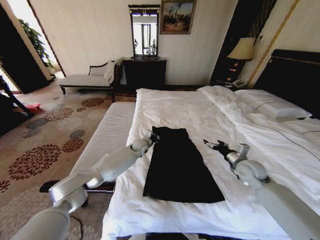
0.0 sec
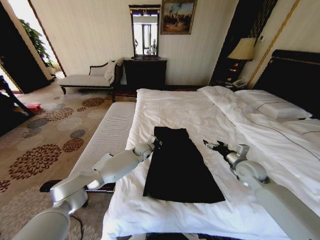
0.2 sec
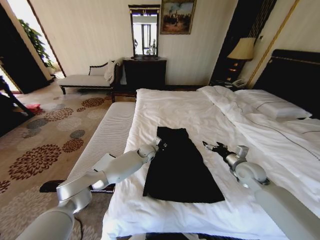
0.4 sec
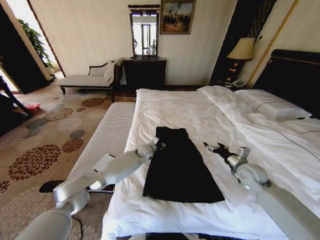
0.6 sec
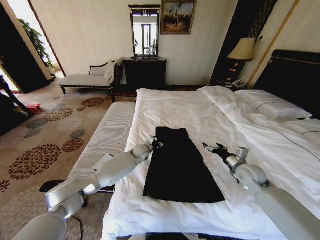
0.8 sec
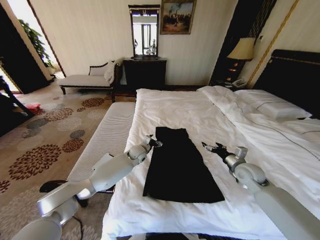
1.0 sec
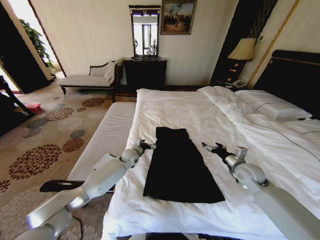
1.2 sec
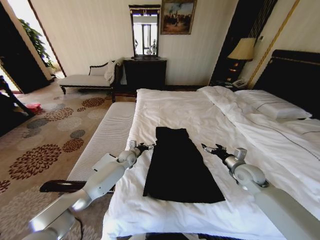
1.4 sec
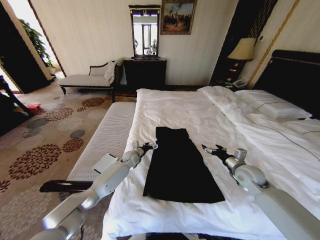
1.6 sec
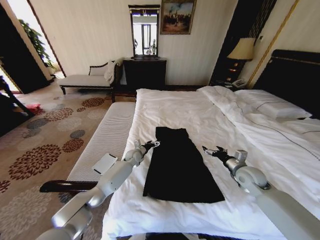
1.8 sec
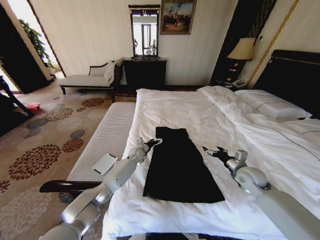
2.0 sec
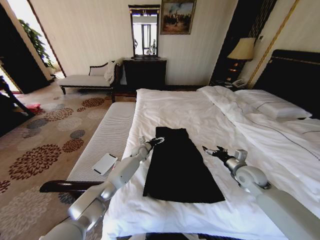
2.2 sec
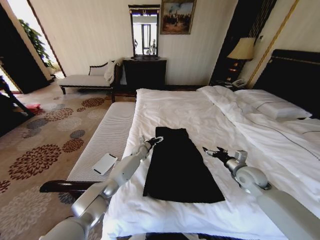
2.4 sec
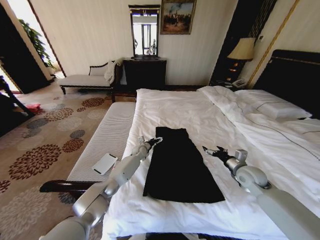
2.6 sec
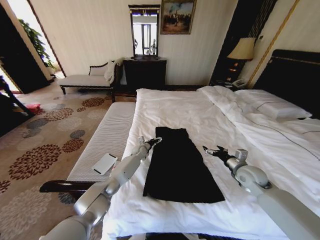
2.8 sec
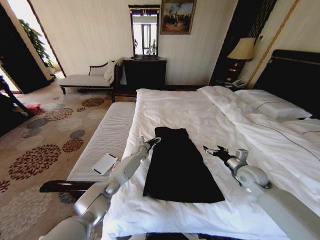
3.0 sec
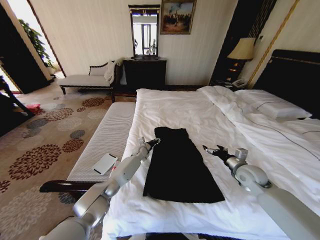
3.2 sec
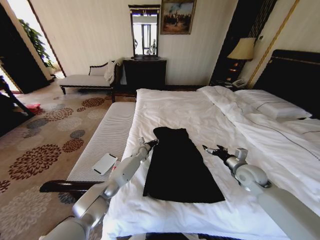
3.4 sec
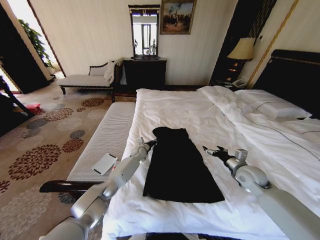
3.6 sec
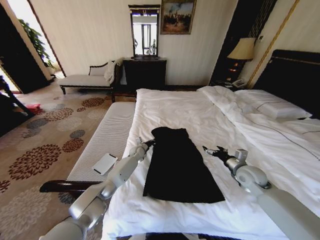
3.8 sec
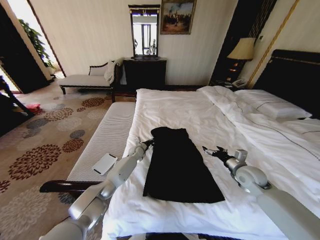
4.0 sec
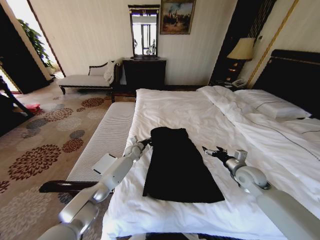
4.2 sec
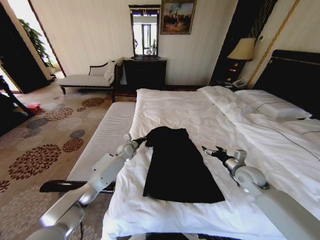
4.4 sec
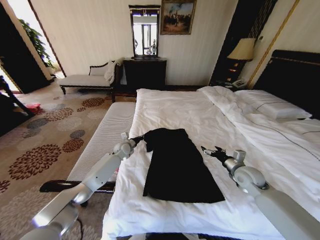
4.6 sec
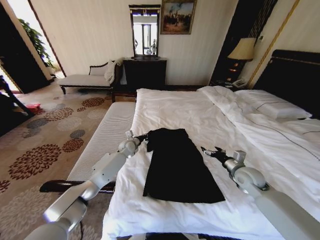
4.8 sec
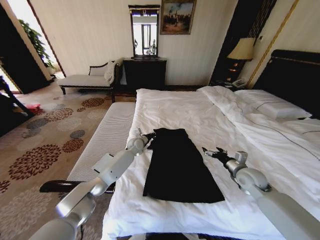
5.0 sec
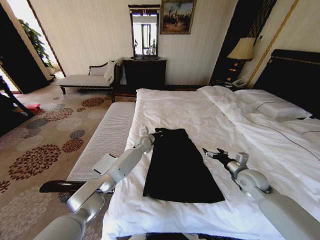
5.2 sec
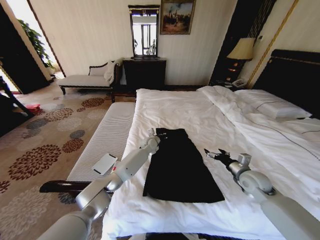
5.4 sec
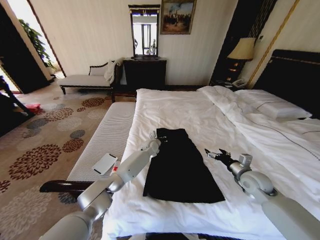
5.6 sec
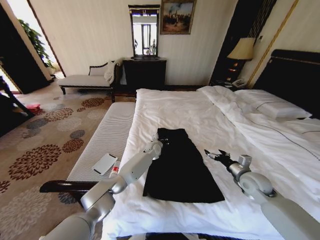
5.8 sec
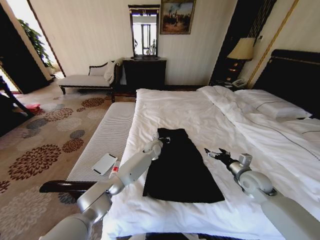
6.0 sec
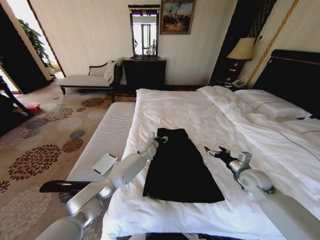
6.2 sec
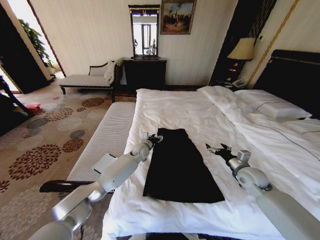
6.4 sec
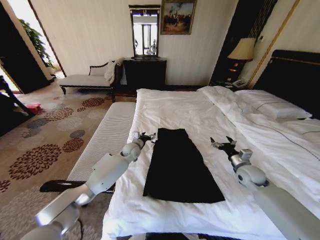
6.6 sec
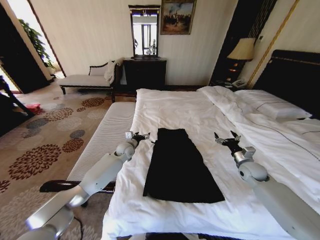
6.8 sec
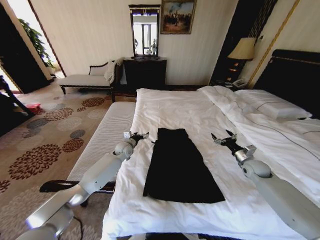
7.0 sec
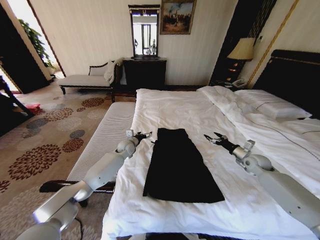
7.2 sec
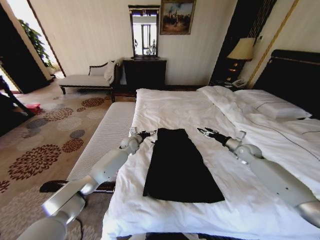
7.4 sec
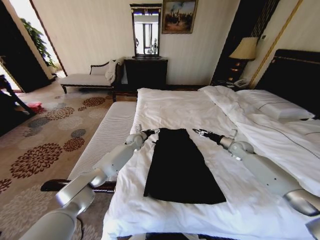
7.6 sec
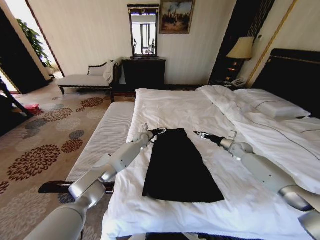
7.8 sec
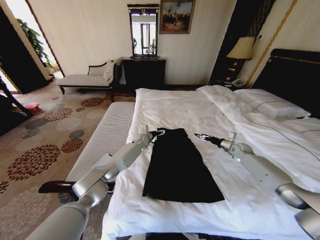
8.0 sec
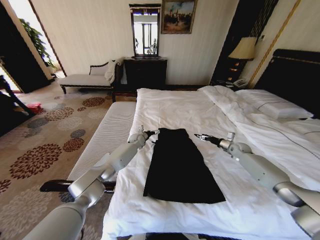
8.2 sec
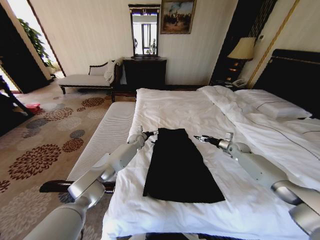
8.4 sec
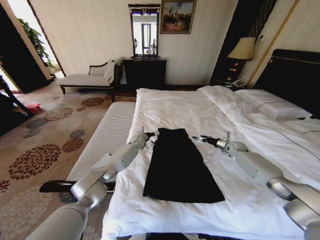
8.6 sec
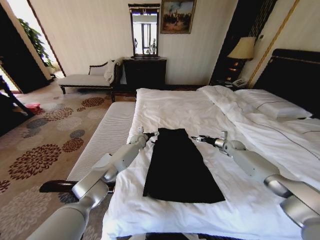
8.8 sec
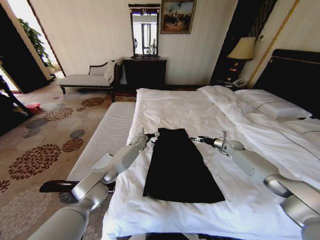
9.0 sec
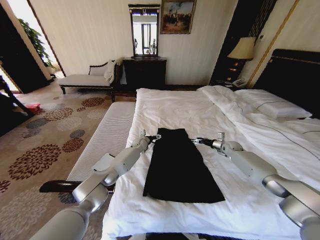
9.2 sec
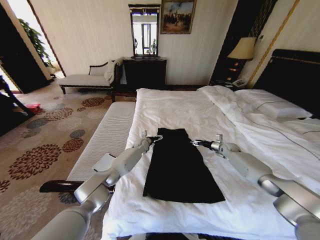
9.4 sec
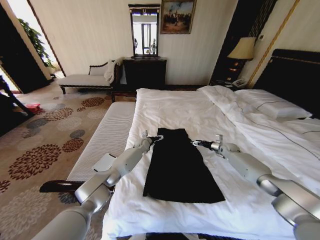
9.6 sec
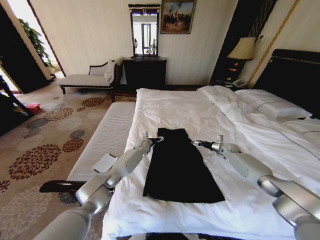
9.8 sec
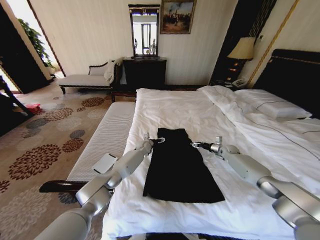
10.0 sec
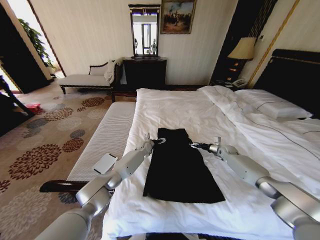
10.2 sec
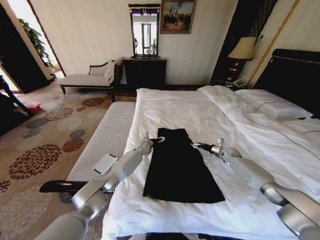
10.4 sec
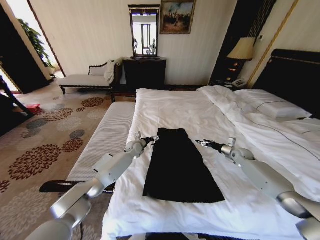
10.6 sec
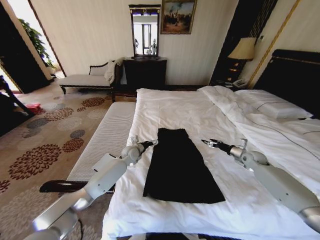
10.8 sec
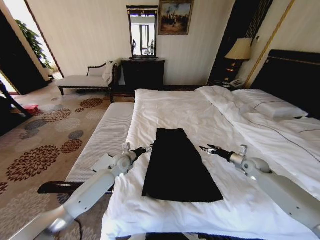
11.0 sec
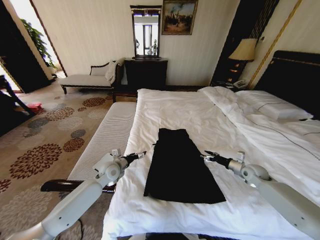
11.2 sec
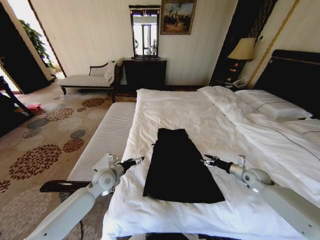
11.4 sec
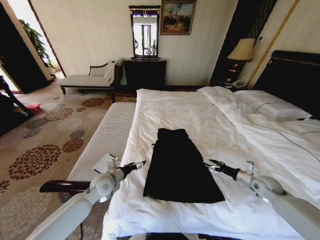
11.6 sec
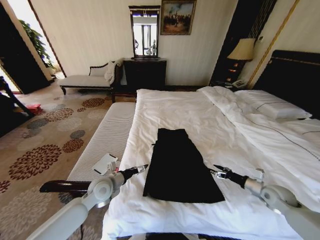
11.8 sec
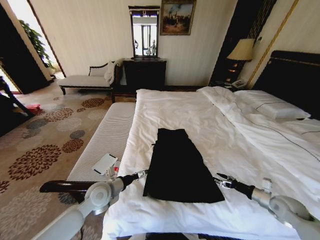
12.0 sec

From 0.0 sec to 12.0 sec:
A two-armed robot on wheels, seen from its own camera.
Task of the whole recording: Fold the clothes on the bed.
From 0.0 sec to 1.6 sec: The left gripper heads downward and to the left, covering about 10 cm, and opens.
From 1.6 sec to 3.0 sec: The left gripper is displaced forward by about 5 cm.
From 3.0 sec to 4.4 sec: The left gripper goes approximately 10 cm to the left and upward, and closes.
From 4.4 sec to 6.0 sec: The left gripper shifts some 15 cm to the right.
From 6.0 sec to 7.6 sec: The left gripper moves to the left, approximately 10 cm, and opens up, while the right gripper heads forward, covering some 20 cm.
From 7.6 sec to 9.0 sec: The right gripper ends up some 5 cm from where it was. Meanwhile the left gripper moves approximately 5 cm.
From 9.0 sec to 10.4 sec: There are only small adjustments of the grippers.
From 10.4 sec to 12.0 sec: The right gripper is displaced backward by about 30 cm, while the left gripper travels backward and to the left by some 35 cm.

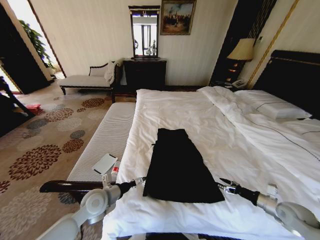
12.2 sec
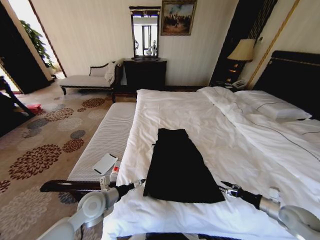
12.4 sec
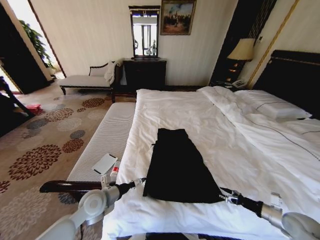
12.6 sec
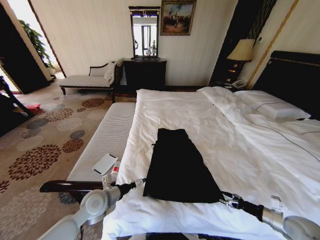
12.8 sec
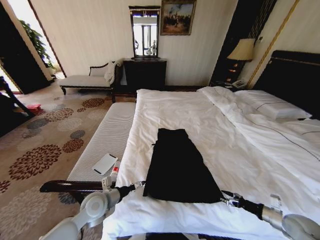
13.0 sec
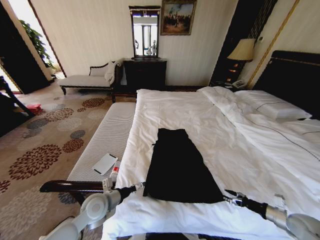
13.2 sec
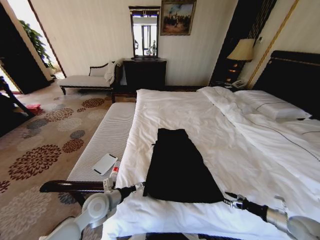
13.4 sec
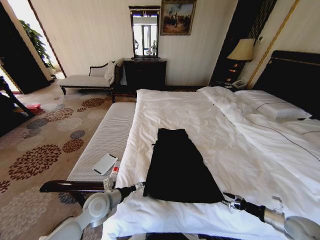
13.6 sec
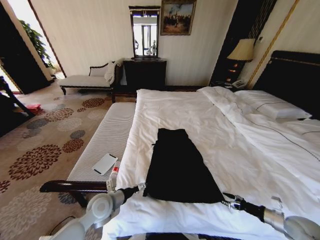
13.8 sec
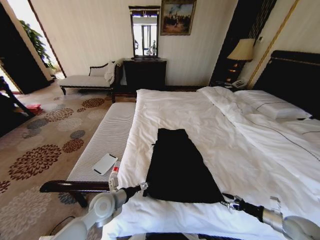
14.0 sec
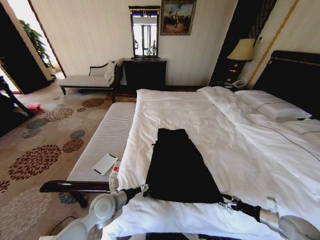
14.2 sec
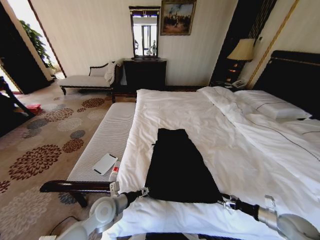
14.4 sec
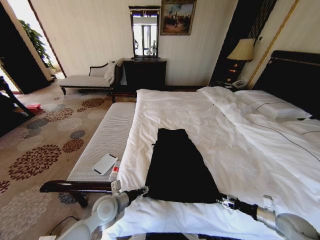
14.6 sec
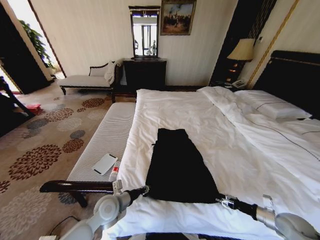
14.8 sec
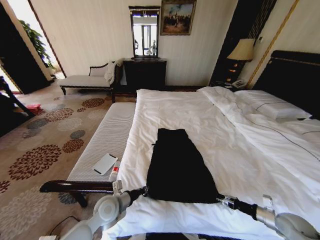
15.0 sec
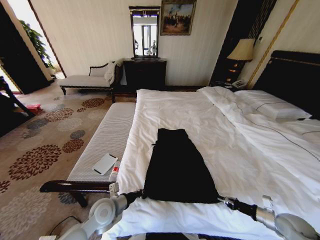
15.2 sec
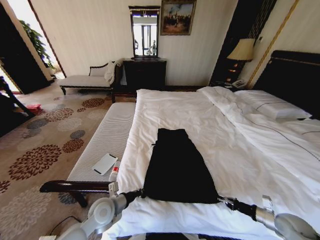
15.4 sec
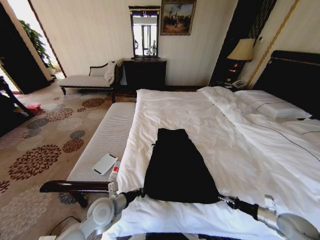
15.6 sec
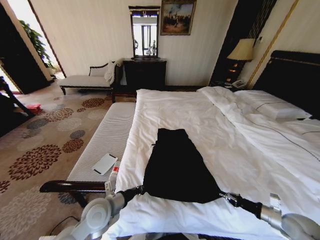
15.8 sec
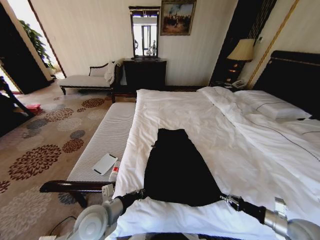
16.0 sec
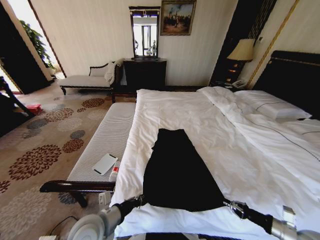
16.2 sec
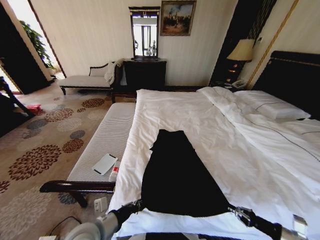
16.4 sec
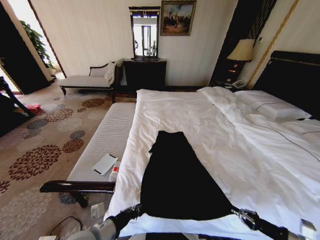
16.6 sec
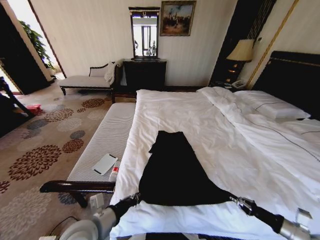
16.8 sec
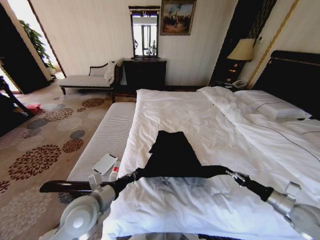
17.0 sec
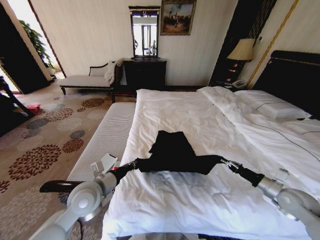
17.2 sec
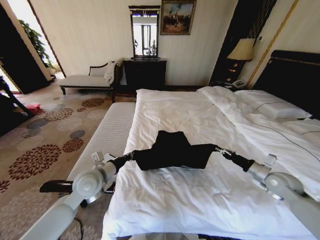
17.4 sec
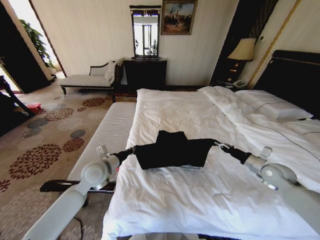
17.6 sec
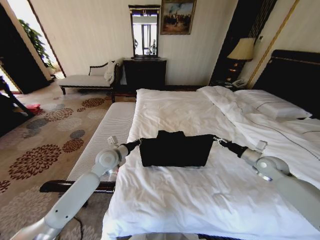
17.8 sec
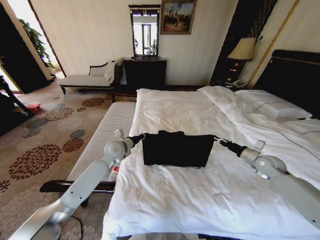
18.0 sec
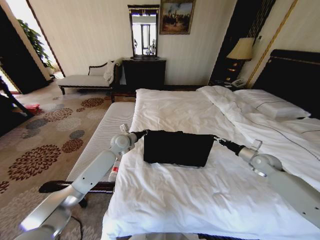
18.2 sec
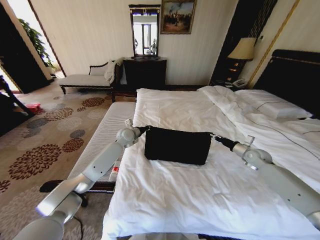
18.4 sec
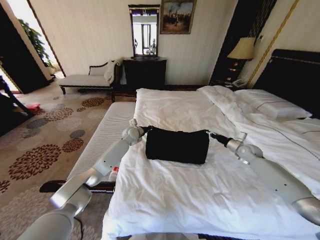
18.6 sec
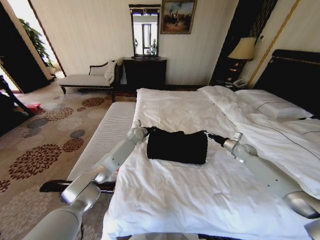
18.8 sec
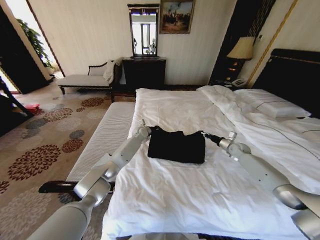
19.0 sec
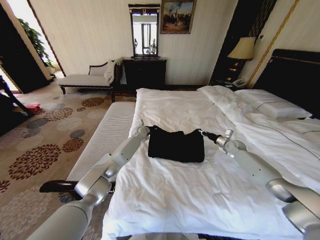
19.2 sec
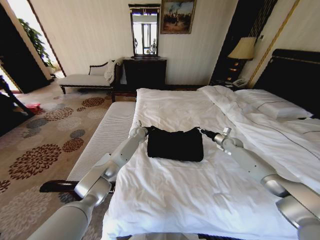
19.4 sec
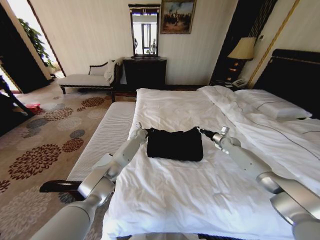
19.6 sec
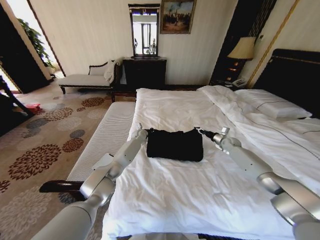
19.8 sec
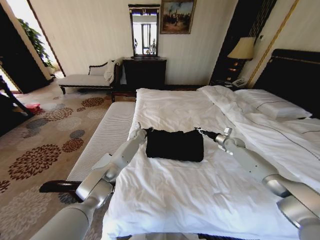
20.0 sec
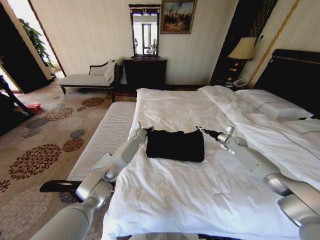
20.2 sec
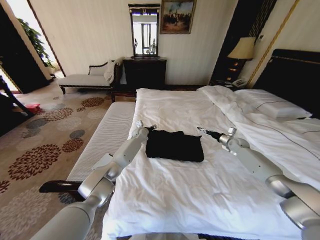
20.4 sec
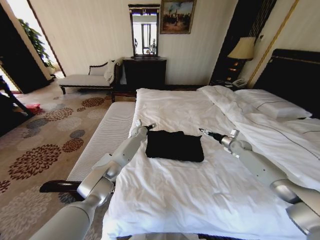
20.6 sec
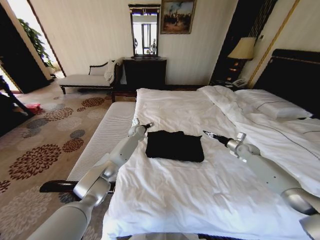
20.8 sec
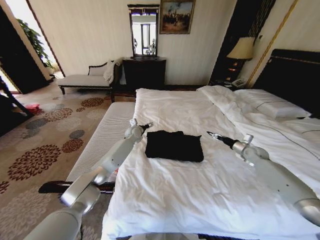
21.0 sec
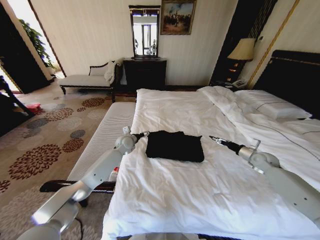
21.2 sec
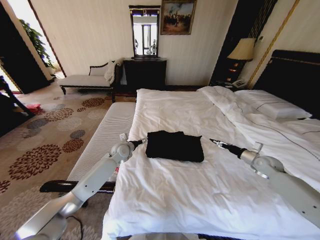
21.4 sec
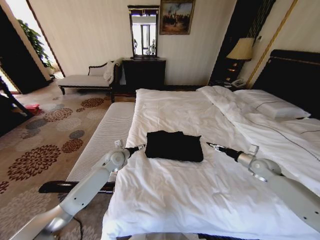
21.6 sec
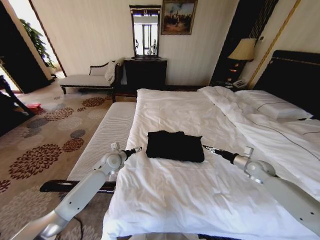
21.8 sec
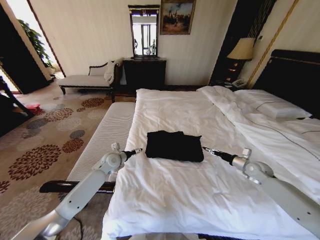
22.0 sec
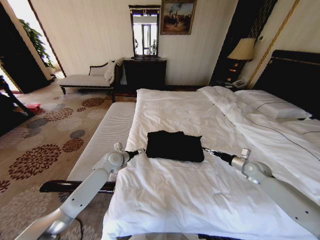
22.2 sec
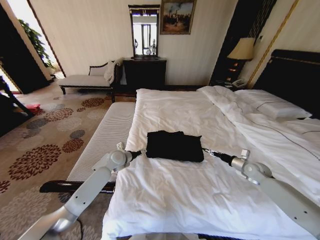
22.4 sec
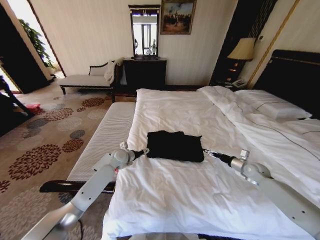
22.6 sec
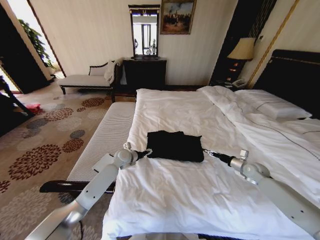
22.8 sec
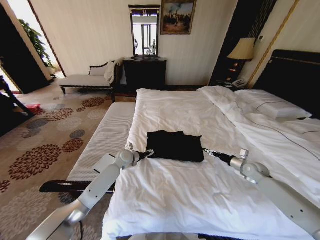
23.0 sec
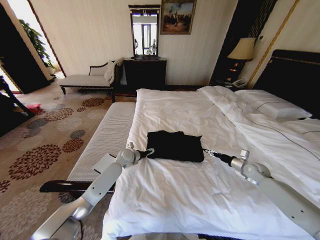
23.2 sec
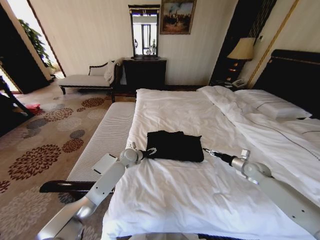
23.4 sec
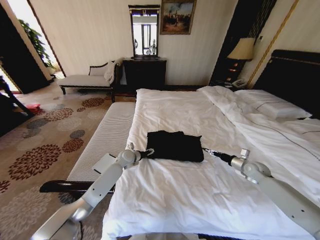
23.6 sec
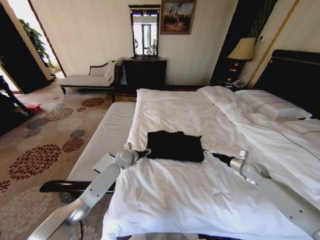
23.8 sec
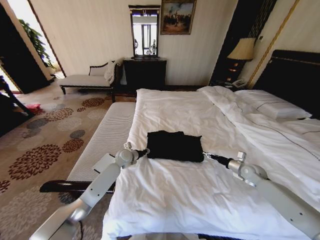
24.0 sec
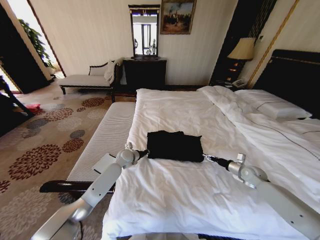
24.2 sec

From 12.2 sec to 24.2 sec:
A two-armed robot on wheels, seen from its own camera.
Task of the whole recording: Fold the clothes on the bed.
From 12.2 sec to 13.8 sec: The right gripper changes place by approximately 5 cm.
From 13.8 sec to 15.2 sec: The right gripper closes its fingers, while the left gripper closes.
From 15.2 sec to 16.6 sec: Both grippers move backward and upward, roughly 15 cm.
From 16.6 sec to 18.2 sec: Both grippers move forward, approximately 35 cm.
From 18.2 sec to 19.8 sec: The left gripper shifts about 20 cm forward, downward and to the right; the right gripper travels forward by approximately 15 cm.
From 19.8 sec to 21.2 sec: The right gripper travels backward and to the right by roughly 15 cm, and opens up. Meanwhile the left gripper moves backward and to the left, roughly 10 cm, and opens.
From 21.2 sec to 22.6 sec: The left gripper travels backward by some 10 cm; the right gripper changes place by approximately 5 cm.
From 22.6 sec to 24.2 sec: The left gripper closes its fingers.
